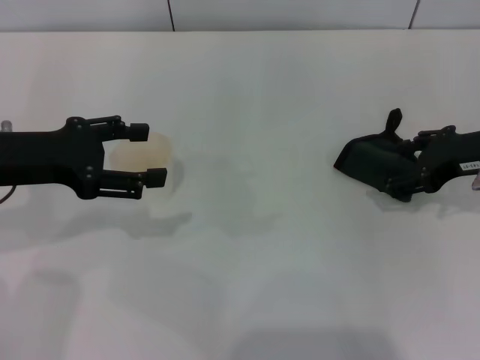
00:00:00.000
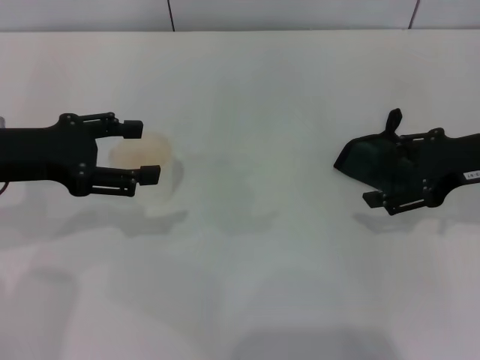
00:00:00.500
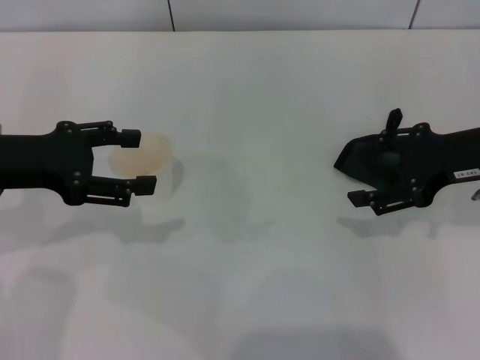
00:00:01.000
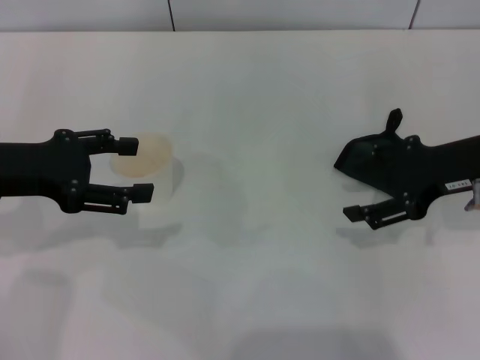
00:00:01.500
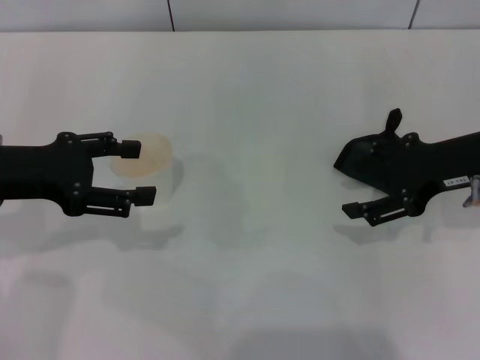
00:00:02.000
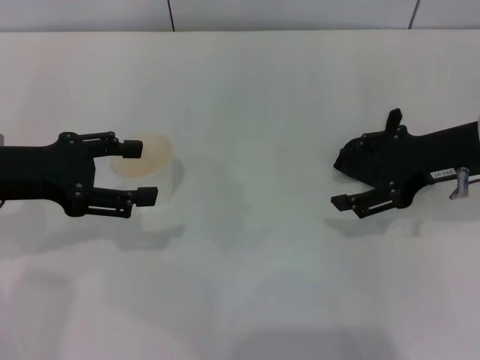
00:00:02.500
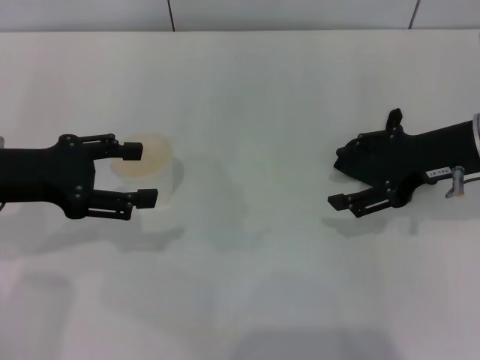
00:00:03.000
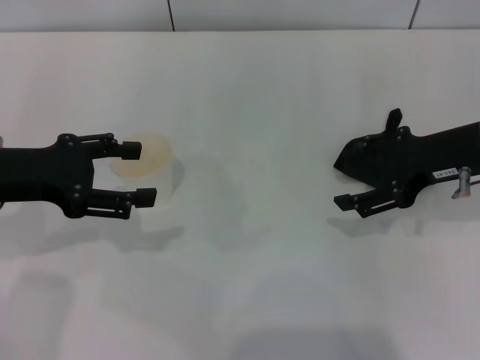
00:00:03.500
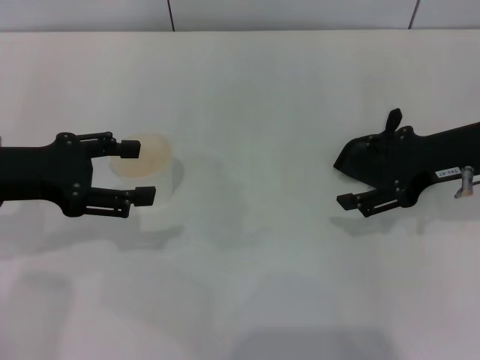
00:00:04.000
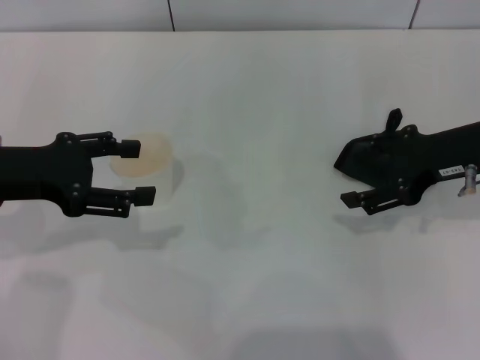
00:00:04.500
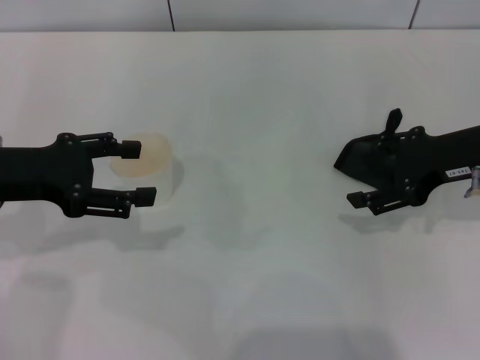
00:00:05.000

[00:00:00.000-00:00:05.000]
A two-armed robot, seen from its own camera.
00:00:02.500 to 00:00:05.000: The two grippers keep their place.

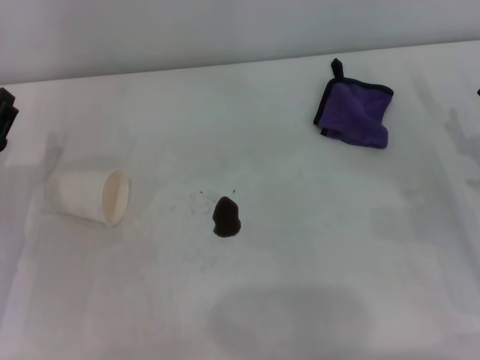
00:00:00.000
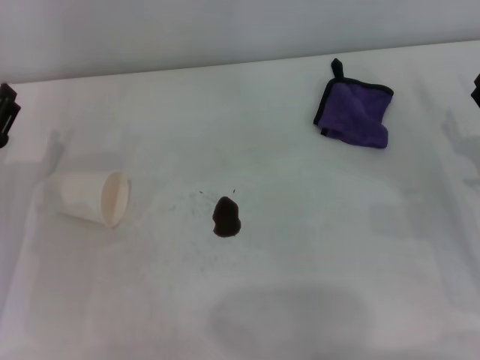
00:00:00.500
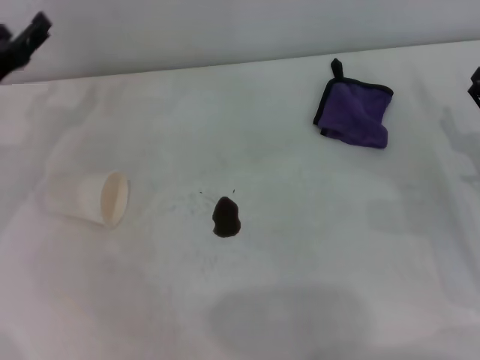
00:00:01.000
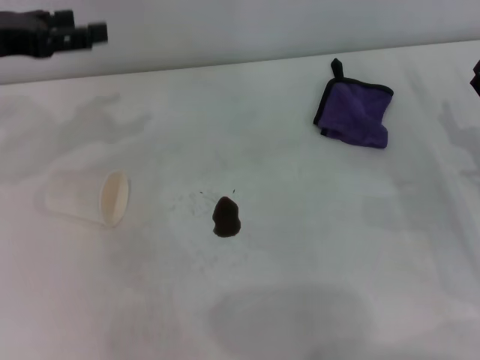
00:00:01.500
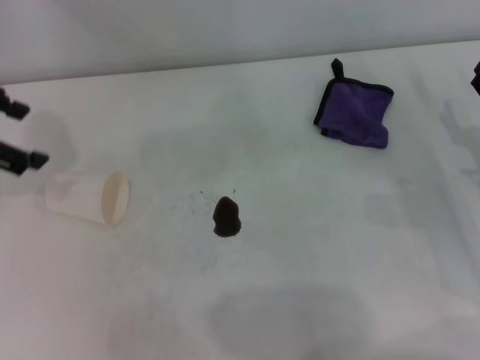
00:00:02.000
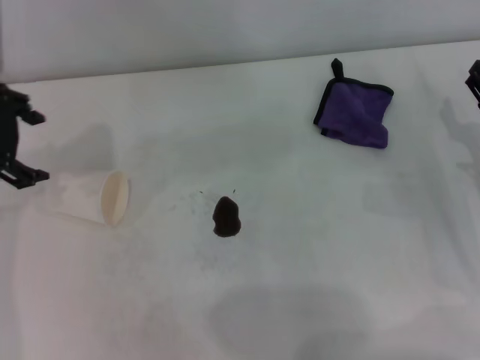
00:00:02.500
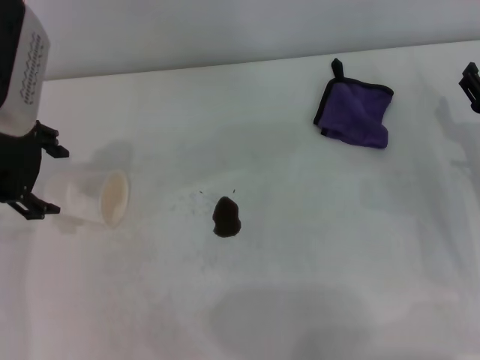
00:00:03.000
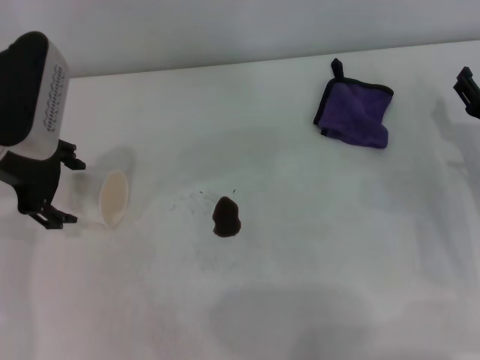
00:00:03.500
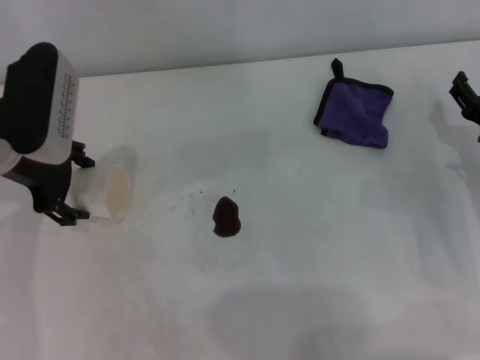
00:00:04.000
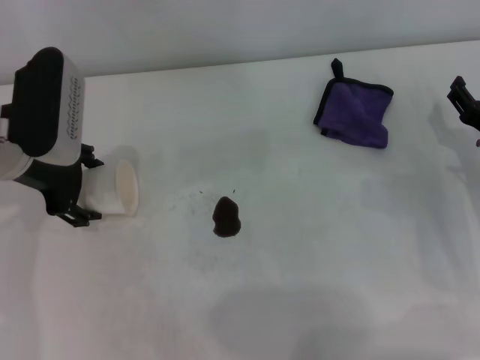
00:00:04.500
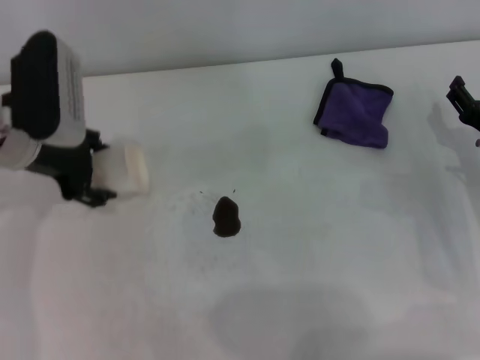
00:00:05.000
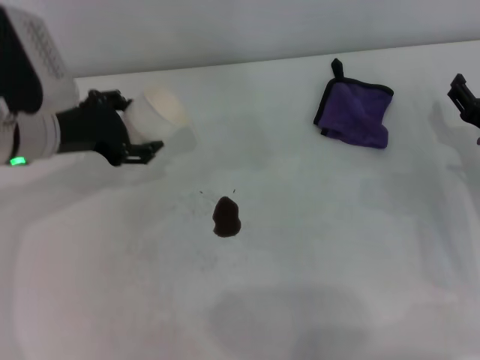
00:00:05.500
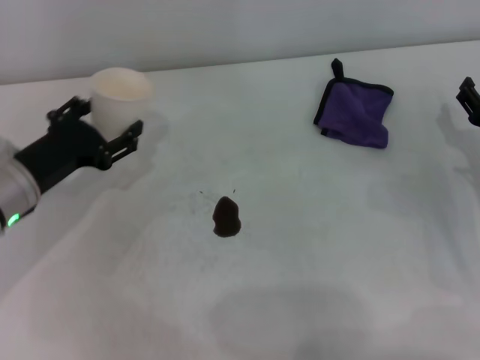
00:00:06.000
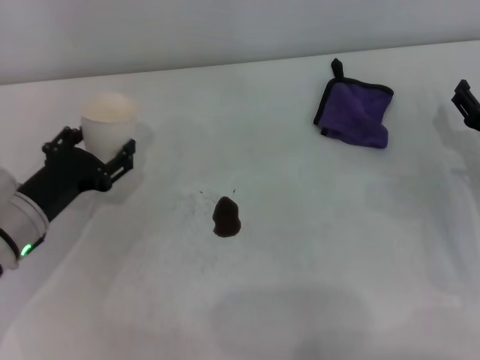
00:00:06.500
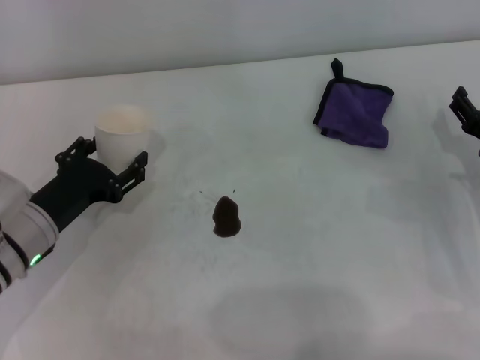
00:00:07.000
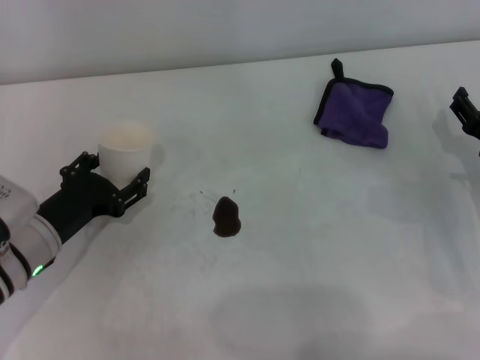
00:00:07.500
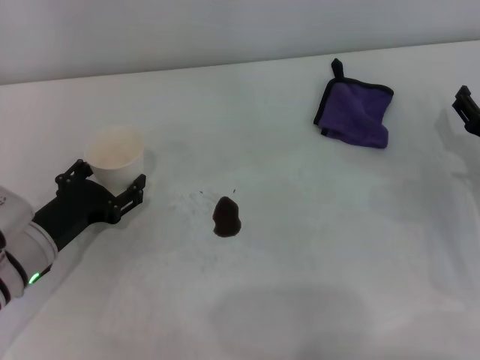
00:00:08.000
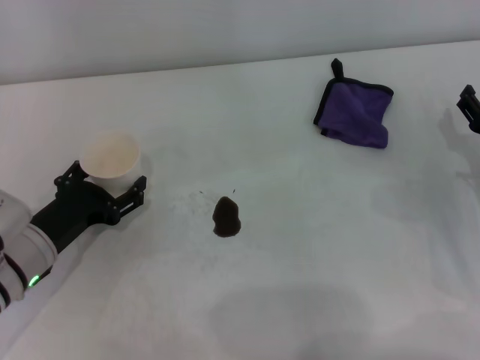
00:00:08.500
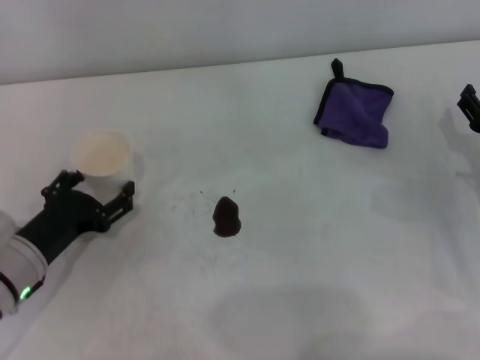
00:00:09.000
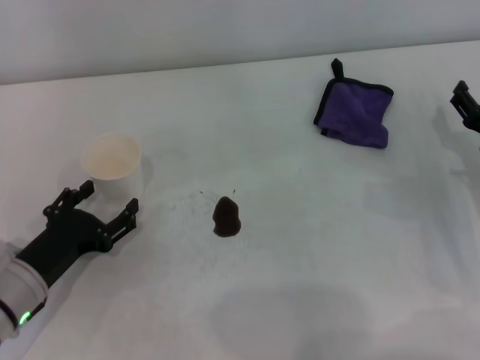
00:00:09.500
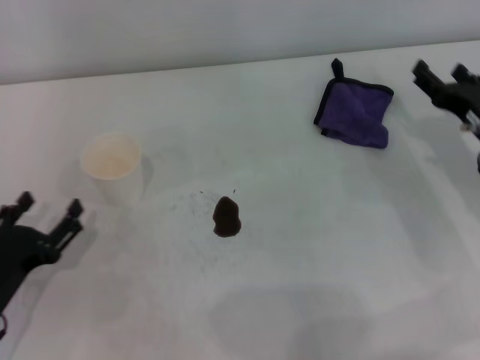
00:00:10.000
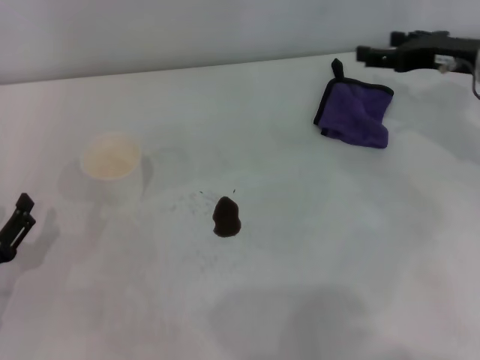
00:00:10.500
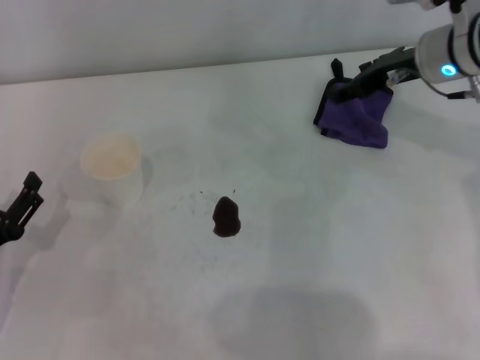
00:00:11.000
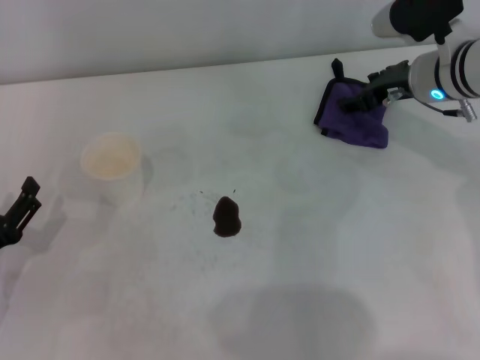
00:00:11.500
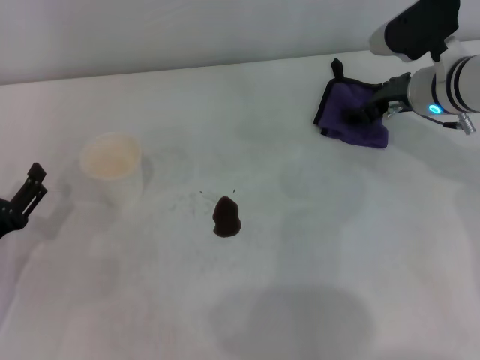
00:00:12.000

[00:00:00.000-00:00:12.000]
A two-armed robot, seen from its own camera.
Step, 00:00:00.000 to 00:00:04.500: Grasp the paper cup with the left gripper.
Step, 00:00:05.000 to 00:00:08.500: Stand the paper cup upright with the left gripper.
00:00:00.000 to 00:00:02.000: The left gripper shifts some 20 cm upward.
00:00:02.000 to 00:00:04.000: The left gripper goes approximately 10 cm downward and to the right.
00:00:04.000 to 00:00:06.000: The left gripper travels downward by about 10 cm.
00:00:06.000 to 00:00:08.000: The left gripper moves approximately 5 cm.
00:00:08.000 to 00:00:10.000: The left gripper heads backward, covering roughly 10 cm.
00:00:10.000 to 00:00:12.000: The right gripper heads forward, to the left and upward, covering about 15 cm.

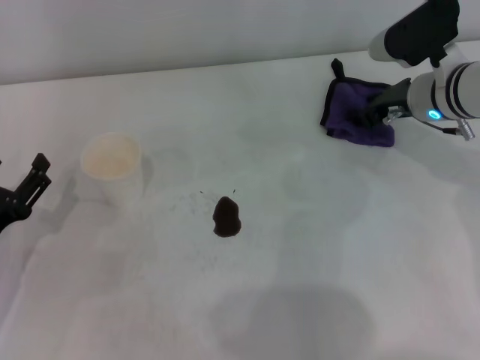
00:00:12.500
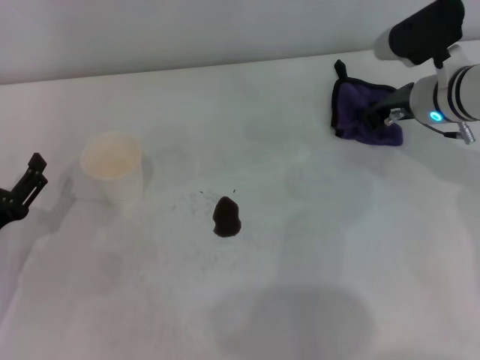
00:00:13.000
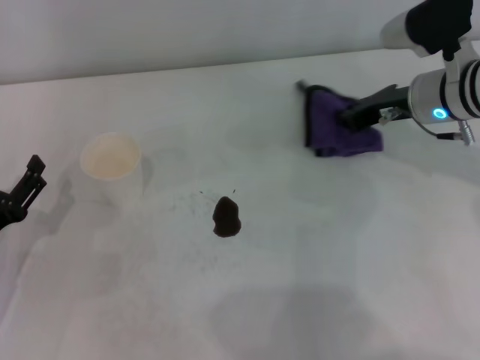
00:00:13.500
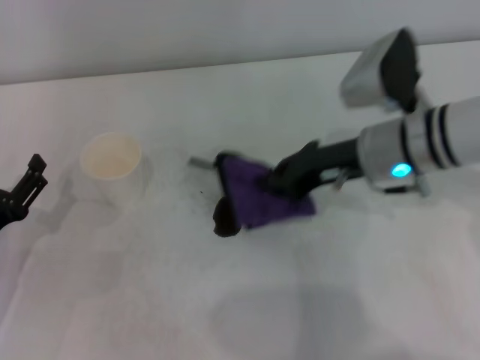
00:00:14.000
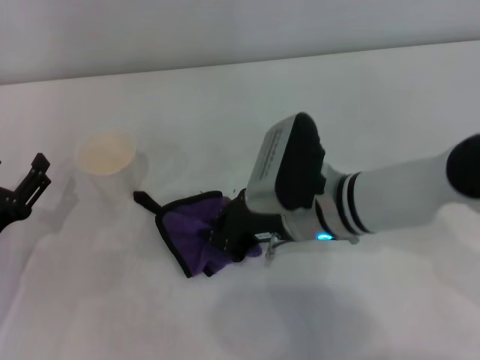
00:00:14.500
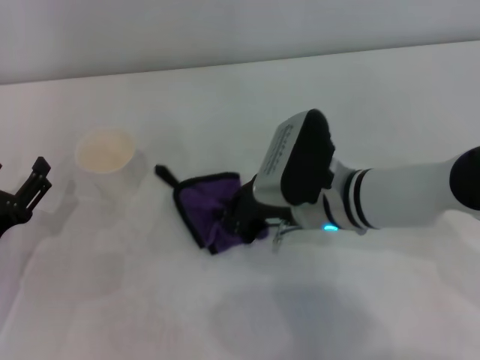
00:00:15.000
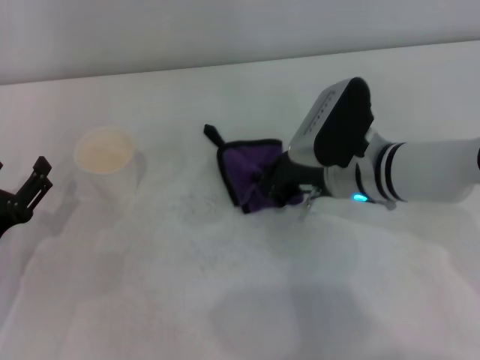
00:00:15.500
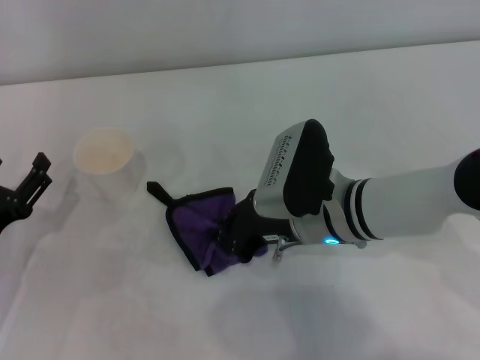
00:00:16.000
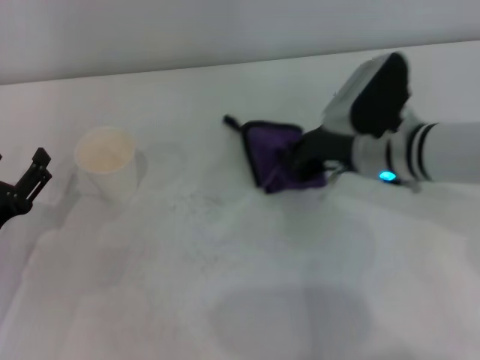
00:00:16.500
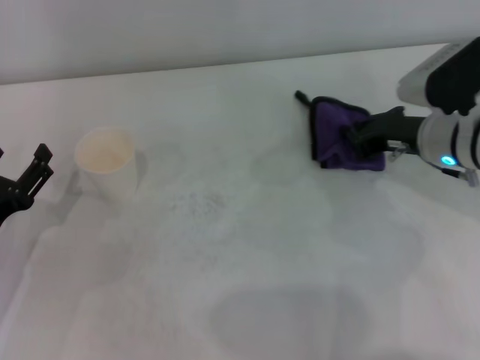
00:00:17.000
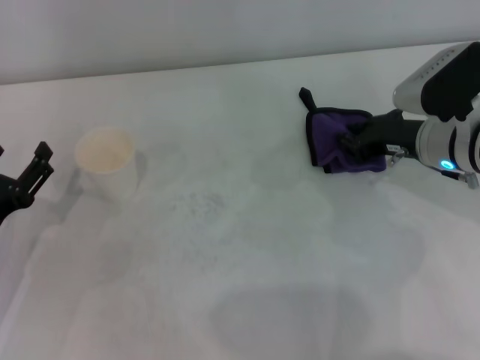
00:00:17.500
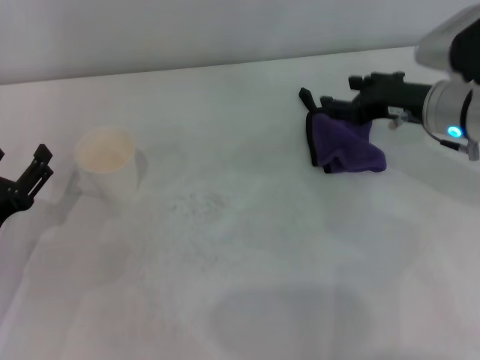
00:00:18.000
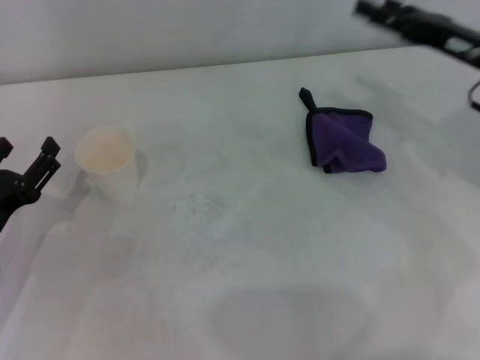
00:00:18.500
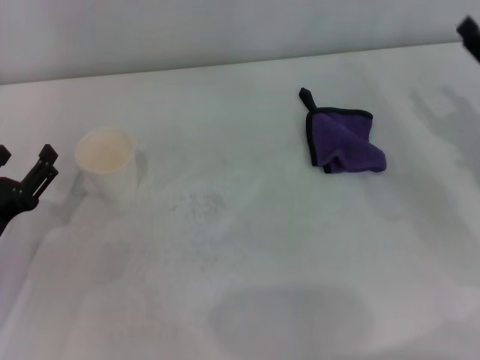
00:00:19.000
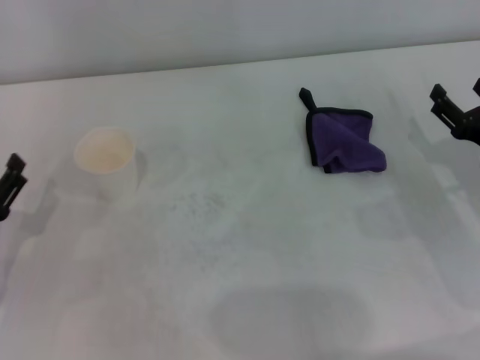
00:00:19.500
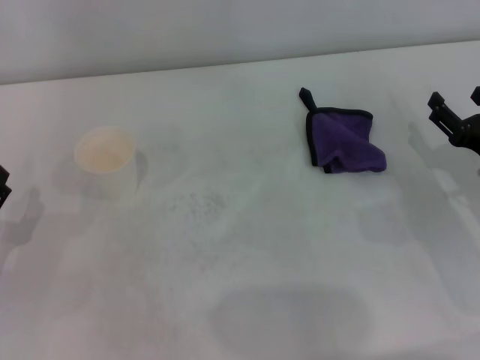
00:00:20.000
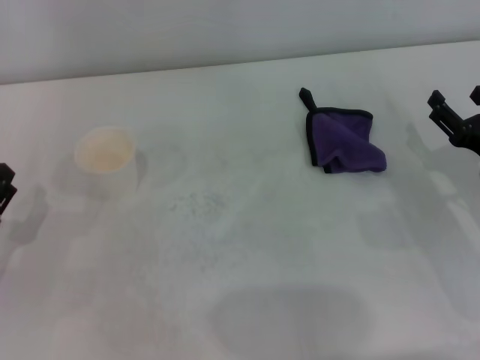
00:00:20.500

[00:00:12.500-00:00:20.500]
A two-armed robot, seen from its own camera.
Step, 00:00:13.500 to 00:00:16.500: Wipe the stains off the table with the right gripper.
00:00:12.500 to 00:00:14.500: The right gripper heads to the left and backward, covering roughly 20 cm, and closes.
00:00:14.500 to 00:00:16.500: The right gripper swings left and right, roughly 10 cm each way, with 2 reversals.
00:00:16.500 to 00:00:18.500: The right gripper goes about 15 cm to the right and upward, and opens.
00:00:18.500 to 00:00:20.500: The right gripper shifts about 15 cm downward and backward.
